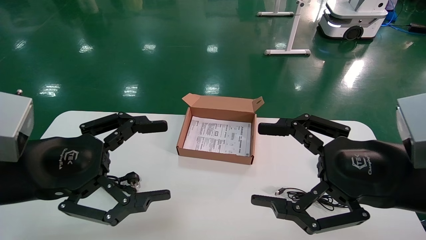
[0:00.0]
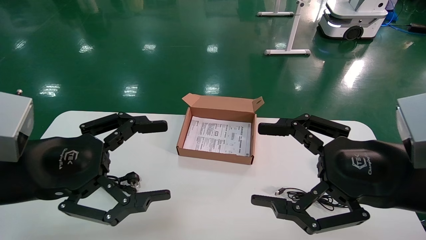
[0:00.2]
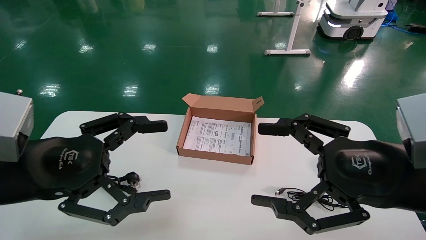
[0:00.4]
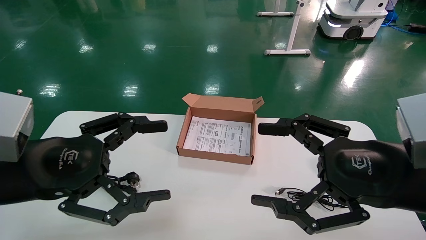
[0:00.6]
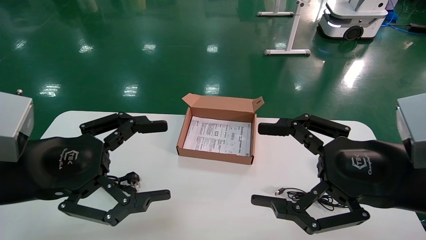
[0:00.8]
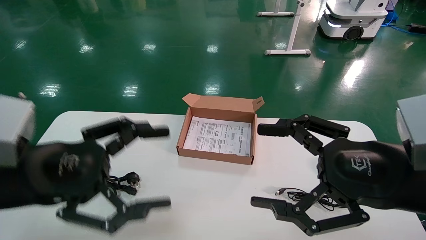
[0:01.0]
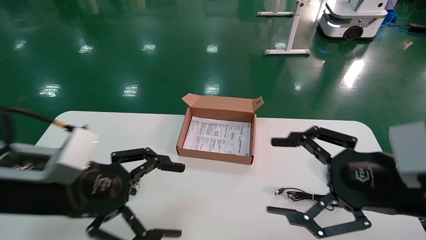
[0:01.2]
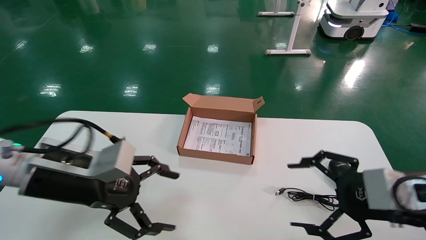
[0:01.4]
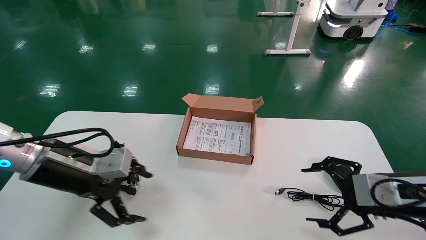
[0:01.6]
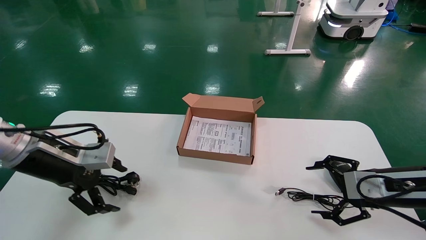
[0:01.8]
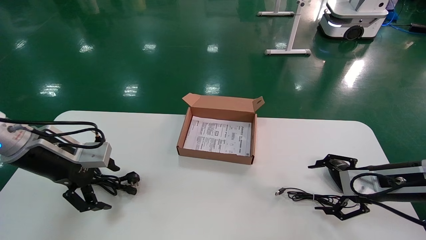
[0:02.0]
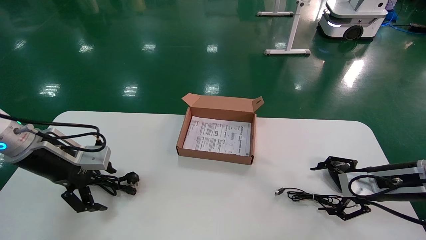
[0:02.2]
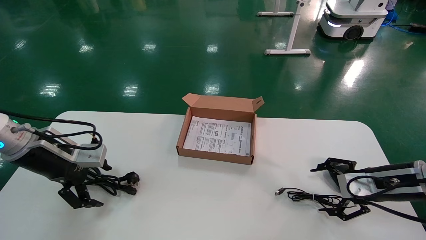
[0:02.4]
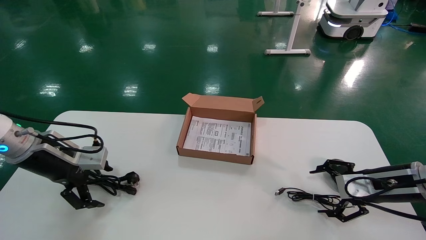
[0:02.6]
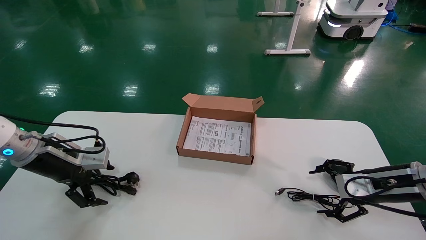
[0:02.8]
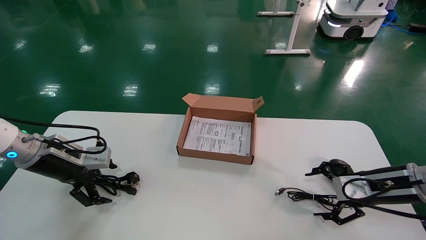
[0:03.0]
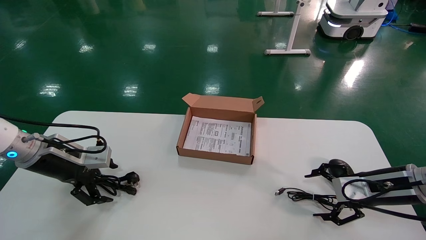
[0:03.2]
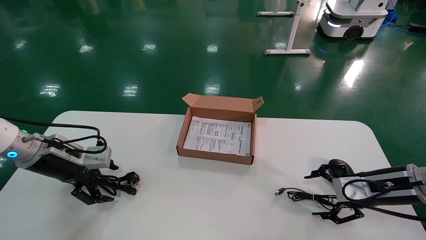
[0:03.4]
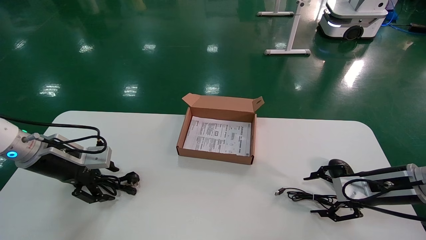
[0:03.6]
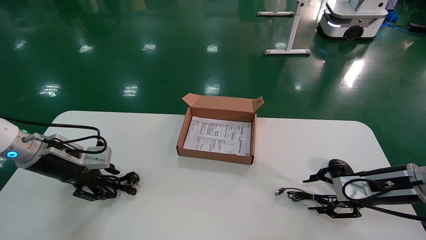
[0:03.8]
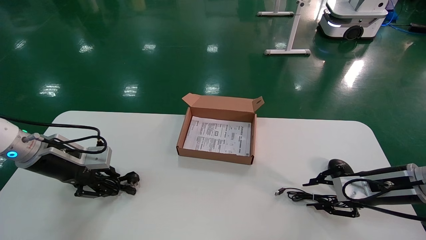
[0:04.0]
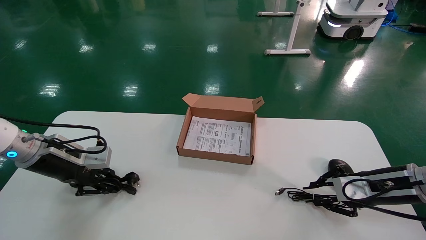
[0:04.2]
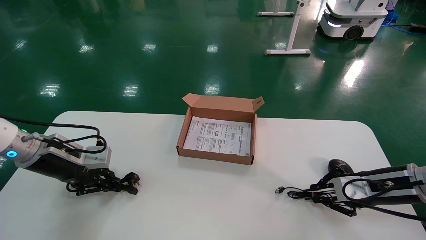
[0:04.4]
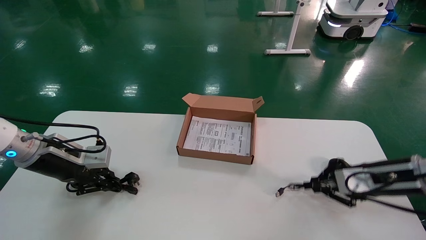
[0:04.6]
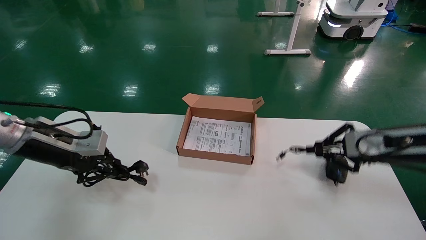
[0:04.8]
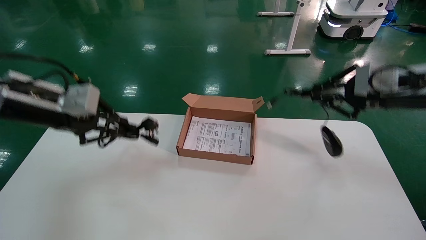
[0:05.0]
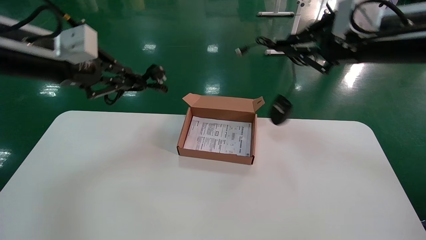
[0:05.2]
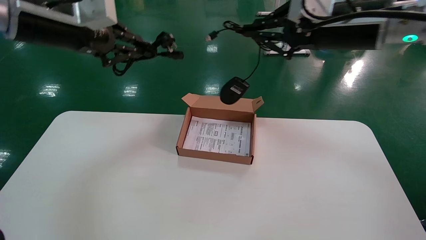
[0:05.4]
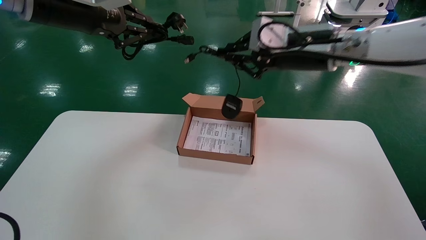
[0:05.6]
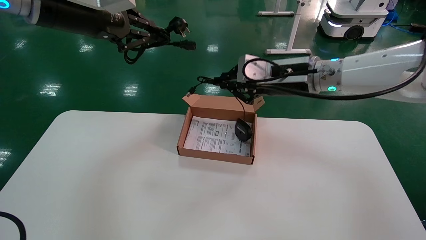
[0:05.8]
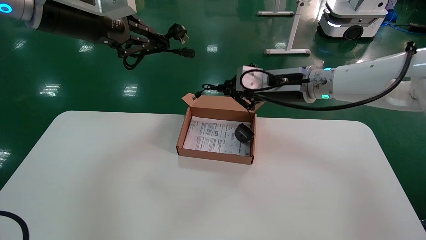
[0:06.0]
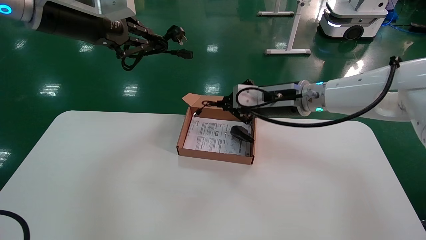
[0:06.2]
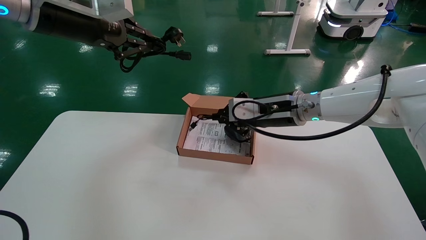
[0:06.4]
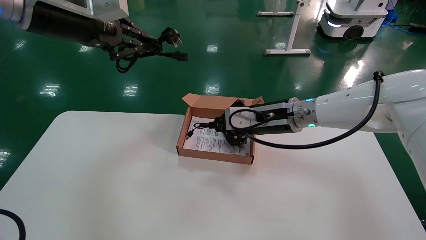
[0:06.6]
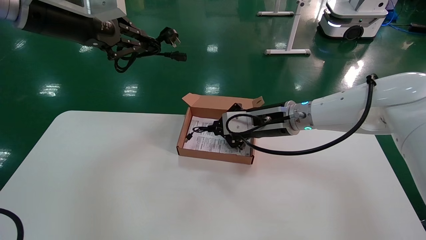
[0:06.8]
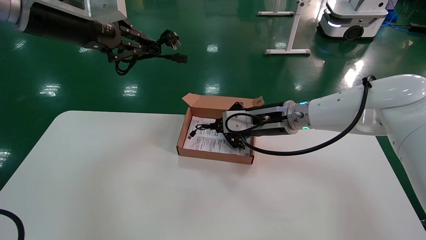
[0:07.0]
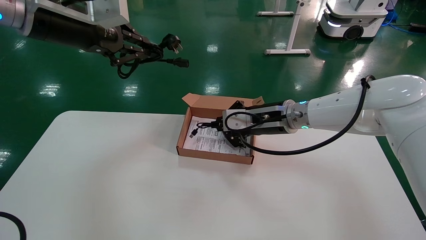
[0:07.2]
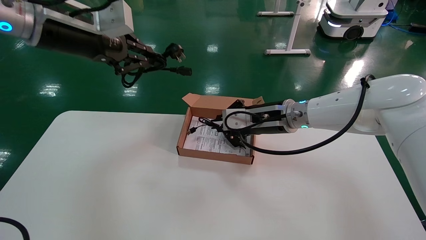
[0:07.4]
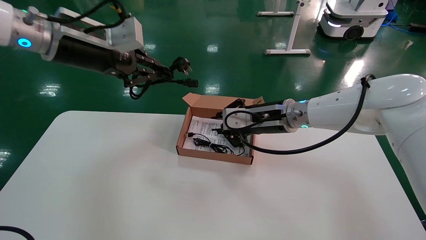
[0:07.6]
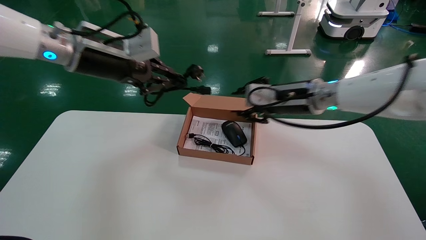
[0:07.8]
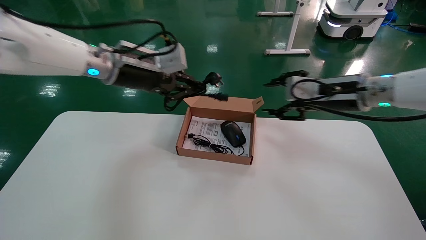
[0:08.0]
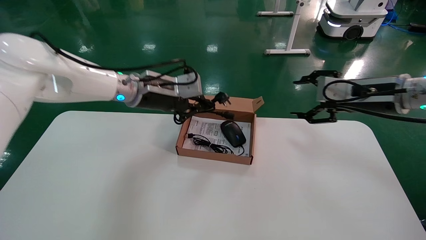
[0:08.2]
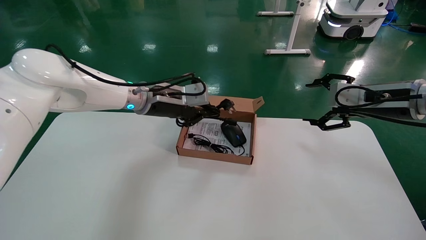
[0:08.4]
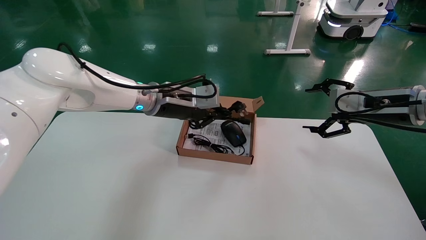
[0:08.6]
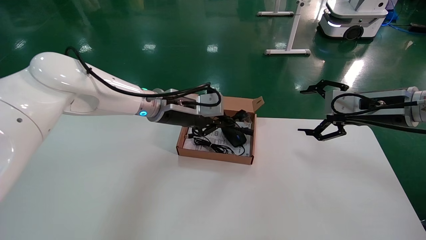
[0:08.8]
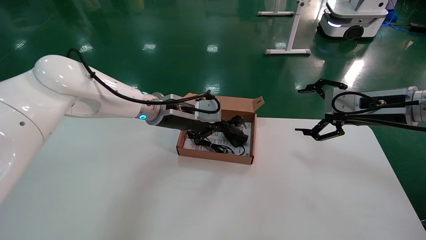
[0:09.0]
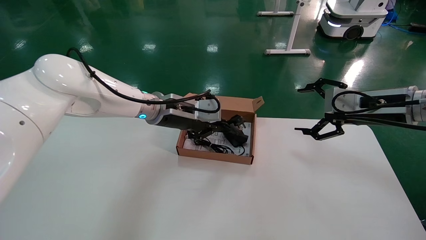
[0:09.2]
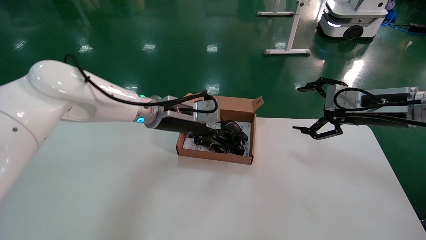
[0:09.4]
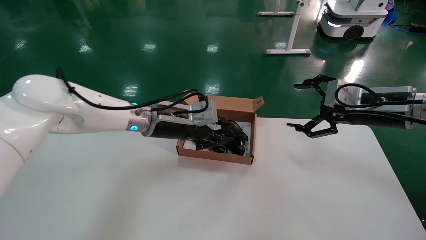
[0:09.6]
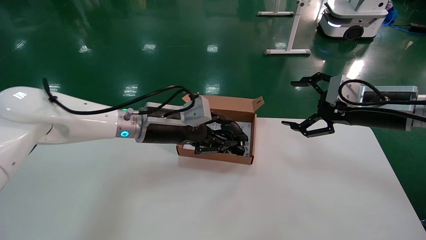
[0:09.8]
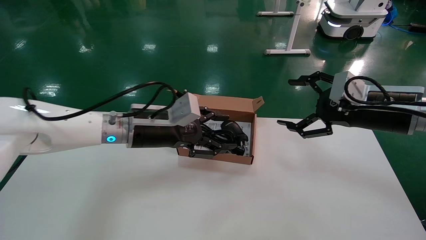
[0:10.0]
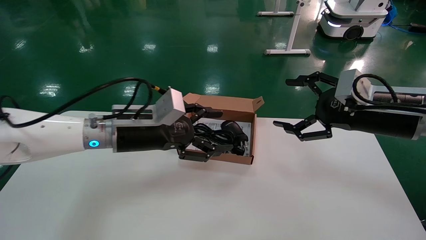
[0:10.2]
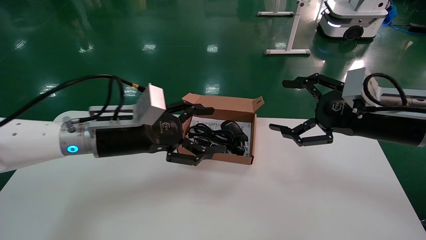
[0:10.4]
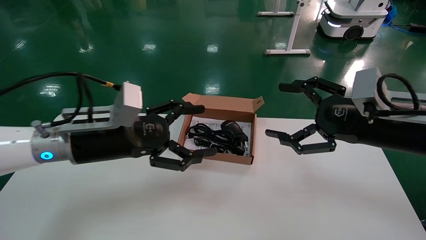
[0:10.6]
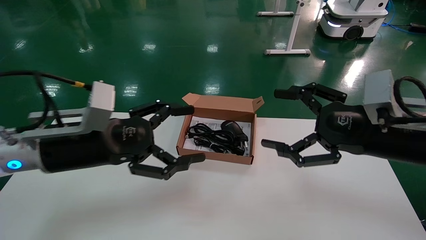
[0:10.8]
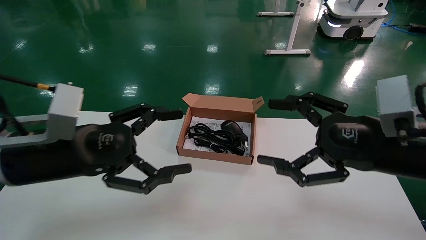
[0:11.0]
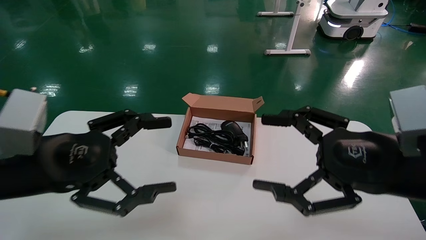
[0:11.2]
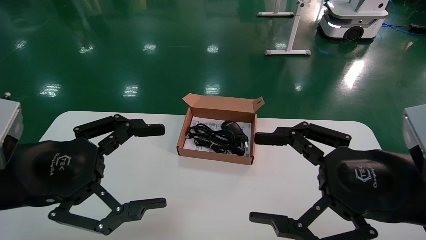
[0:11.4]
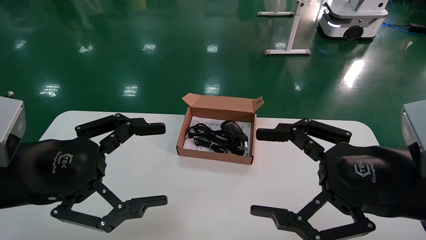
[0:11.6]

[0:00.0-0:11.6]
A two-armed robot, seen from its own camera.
Step, 0:01.2 to 0:04.4: Grab and lift both the mouse and power cord from the accessory packaging area at the same time.
Step, 0:04.6 to 0:10.0: Place the mouse and power cord into the box.
0:00.0 to 0:01.4: The right gripper moves to the right and downward, some 5 cm. Meanwhile the left gripper heads forward, covering some 5 cm.
0:01.4 to 0:02.8: The left gripper is displaced to the left and forward by approximately 15 cm. The right gripper travels forward, downward and to the right by about 15 cm.
0:02.8 to 0:04.4: The left gripper closes its fingers; the right gripper closes.
0:04.4 to 0:05.8: The left gripper moves upward, approximately 25 cm; the right gripper is displaced to the left and upward by roughly 25 cm.
0:05.8 to 0:07.2: The right gripper travels downward by some 10 cm.
0:07.2 to 0:08.8: The left gripper travels downward, to the right and forward by approximately 25 cm, while the right gripper shifts some 20 cm to the right, and opens up.
0:08.8 to 0:10.2: The right gripper is displaced backward by some 5 cm. Meanwhile the left gripper shifts about 10 cm backward and to the left, and opens up.
0:10.2 to 0:11.6: The left gripper shifts roughly 20 cm backward and to the left, while the right gripper moves backward, roughly 15 cm.

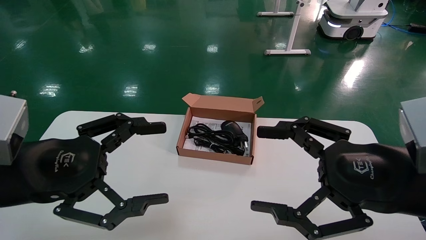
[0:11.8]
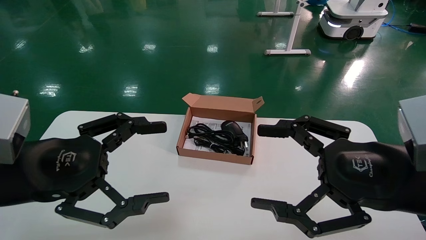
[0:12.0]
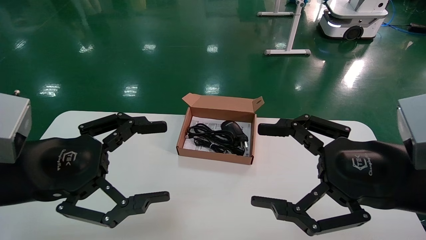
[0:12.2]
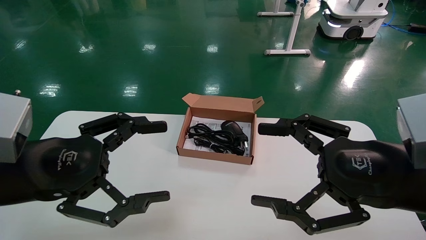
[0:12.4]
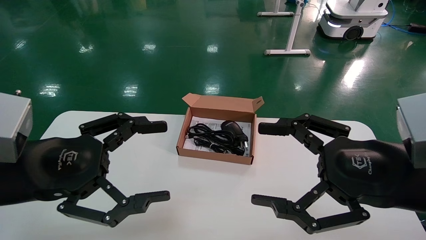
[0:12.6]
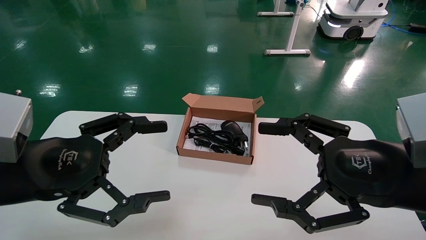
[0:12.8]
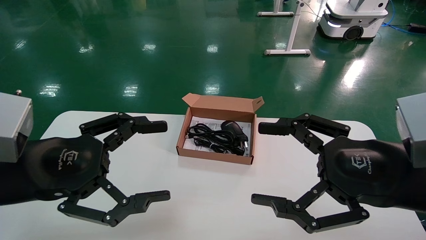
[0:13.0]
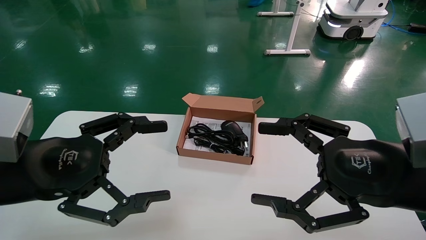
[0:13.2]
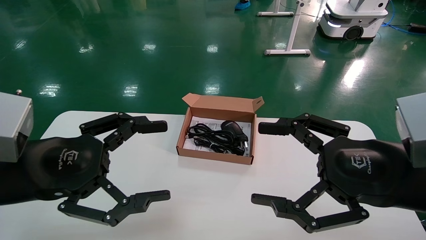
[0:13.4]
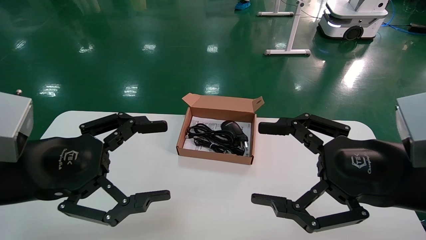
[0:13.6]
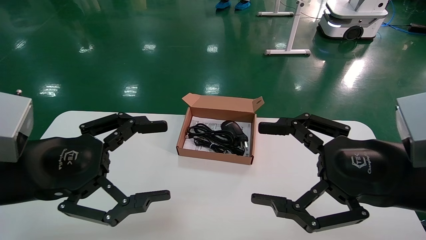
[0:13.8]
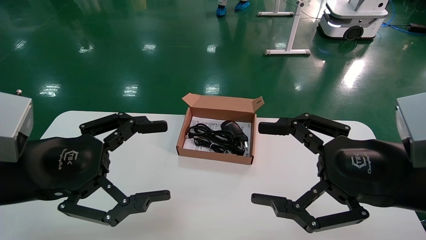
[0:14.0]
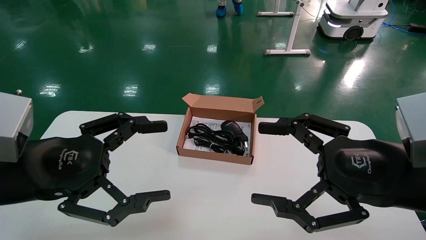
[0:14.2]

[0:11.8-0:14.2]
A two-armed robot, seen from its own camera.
0:11.8 to 0:14.2: The two grippers keep their place.

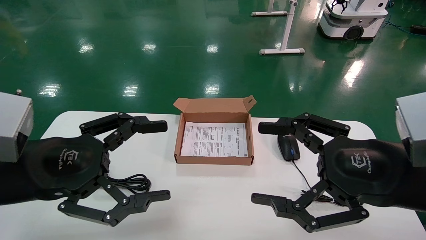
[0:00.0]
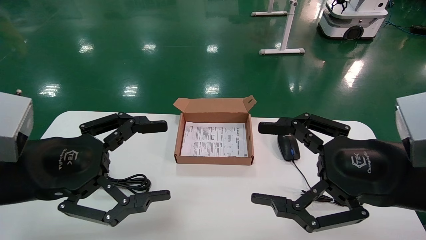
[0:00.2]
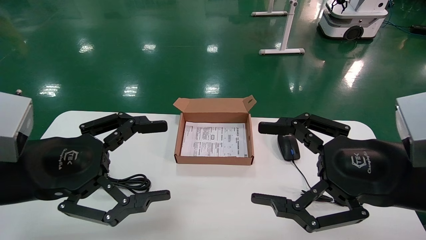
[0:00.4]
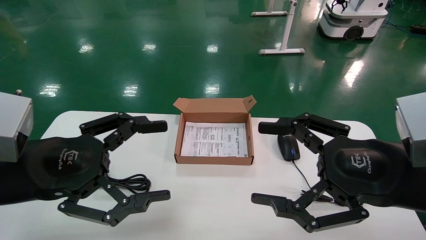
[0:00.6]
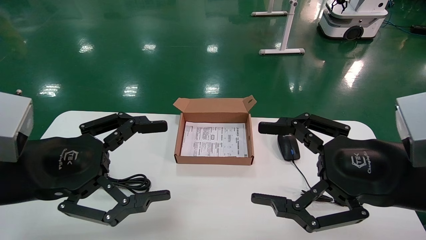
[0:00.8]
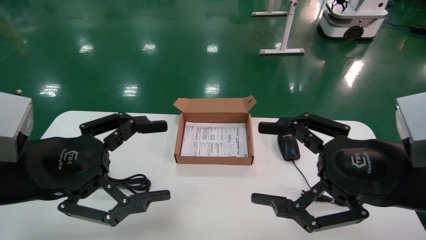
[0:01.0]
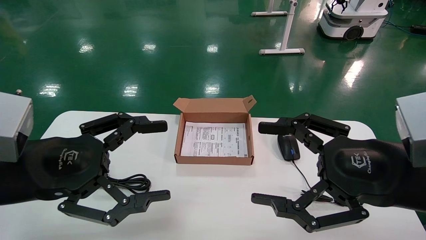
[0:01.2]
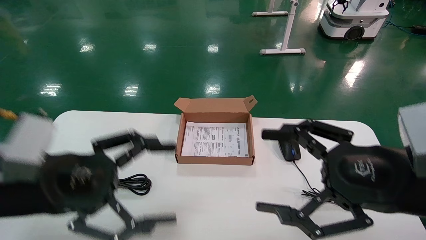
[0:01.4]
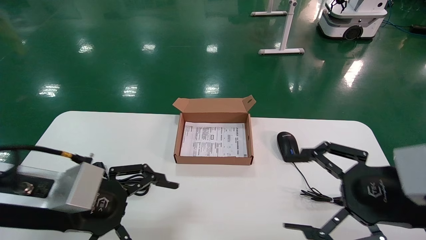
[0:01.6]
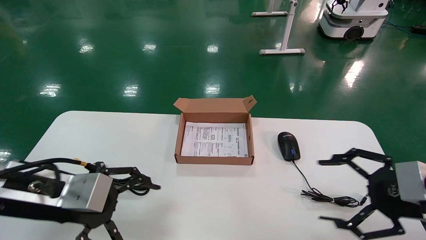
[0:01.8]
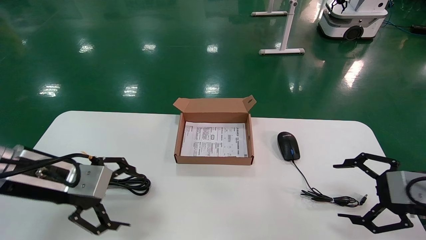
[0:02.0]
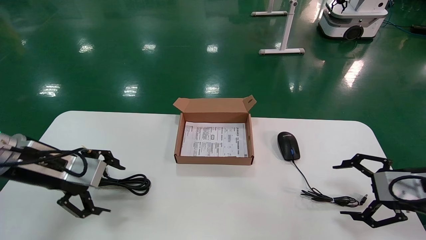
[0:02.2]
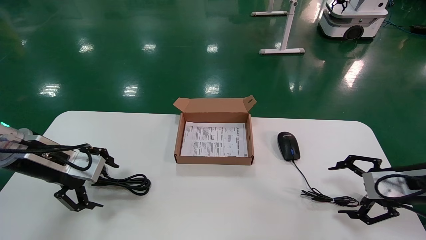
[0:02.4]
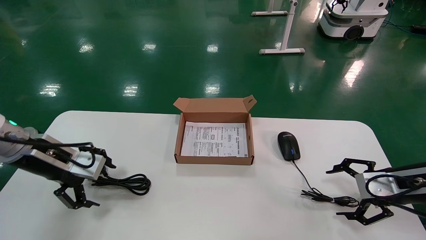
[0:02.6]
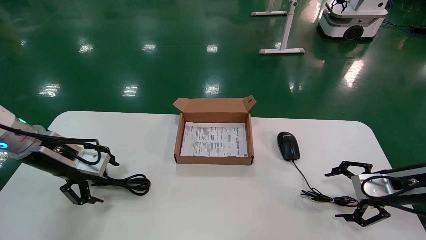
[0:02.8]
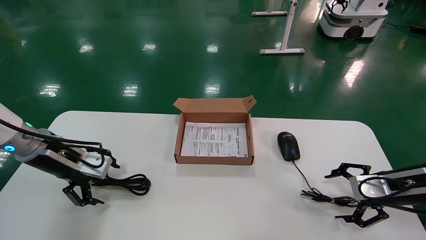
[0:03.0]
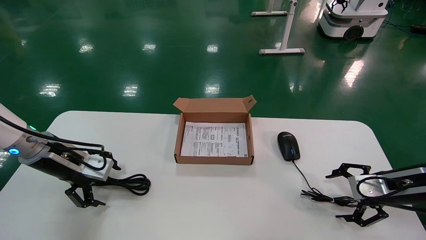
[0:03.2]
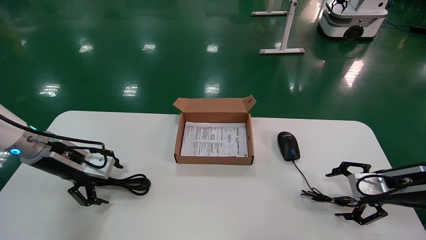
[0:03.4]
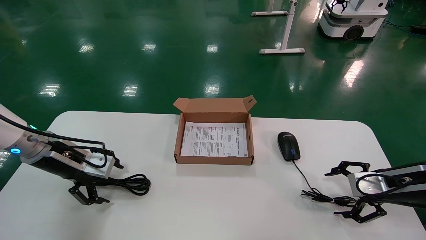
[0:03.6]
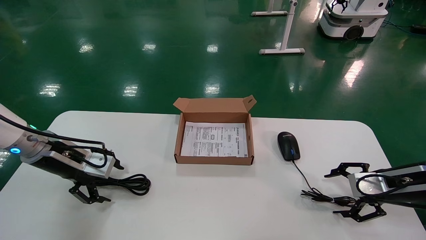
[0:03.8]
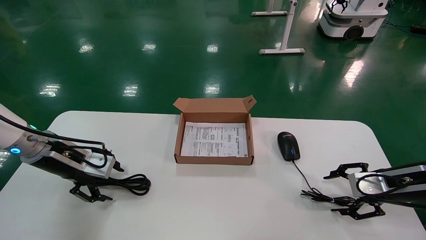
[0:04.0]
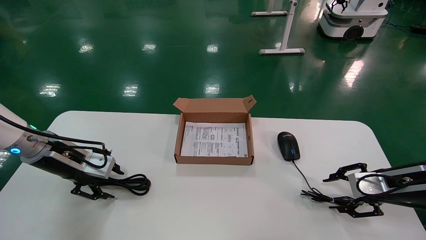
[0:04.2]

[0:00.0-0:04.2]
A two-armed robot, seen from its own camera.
0:01.4 to 0:02.8: The left gripper shifts roughly 20 cm forward and to the left, while the right gripper travels forward, to the right and downward by approximately 20 cm.
0:02.8 to 0:04.2: The left gripper closes.
